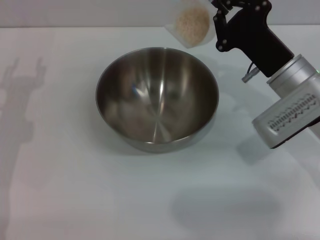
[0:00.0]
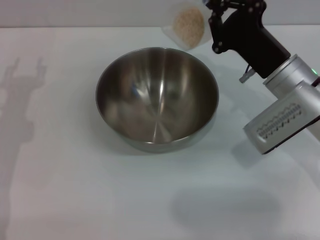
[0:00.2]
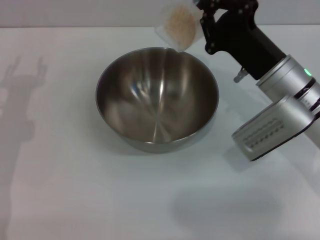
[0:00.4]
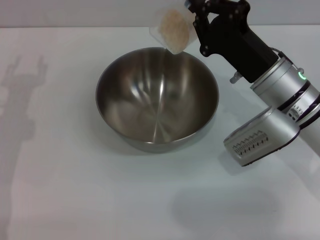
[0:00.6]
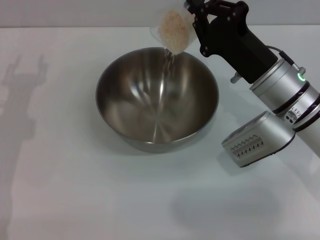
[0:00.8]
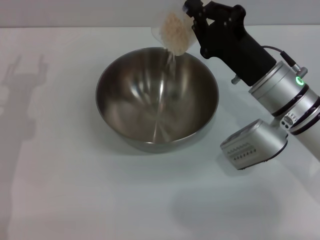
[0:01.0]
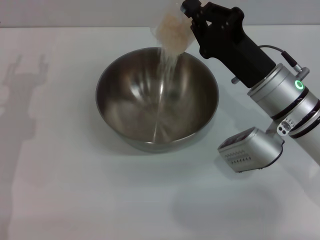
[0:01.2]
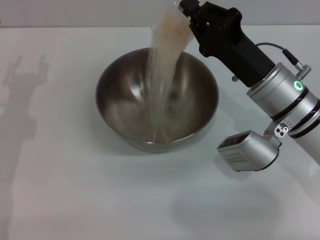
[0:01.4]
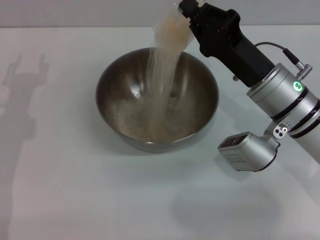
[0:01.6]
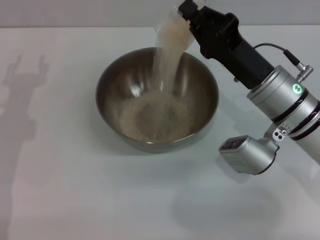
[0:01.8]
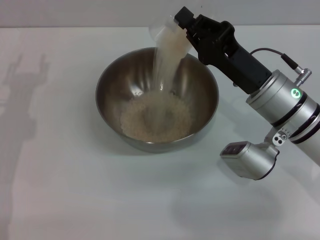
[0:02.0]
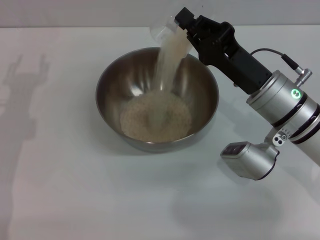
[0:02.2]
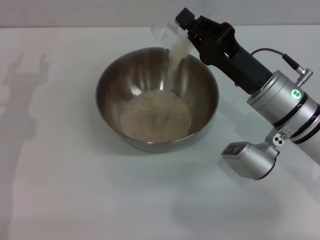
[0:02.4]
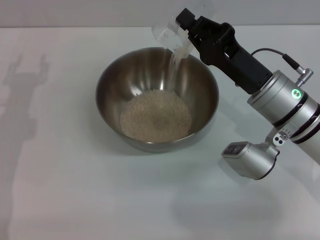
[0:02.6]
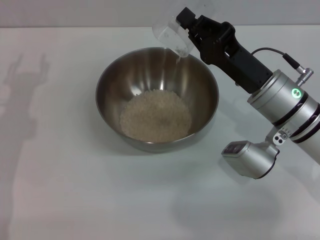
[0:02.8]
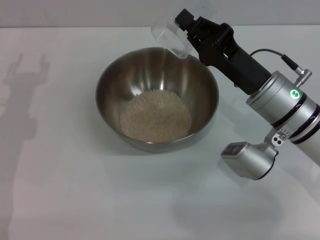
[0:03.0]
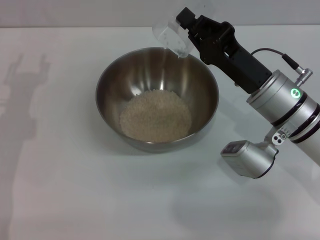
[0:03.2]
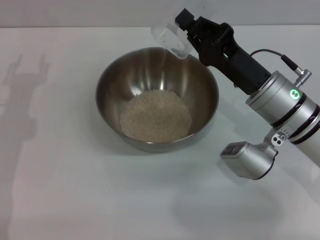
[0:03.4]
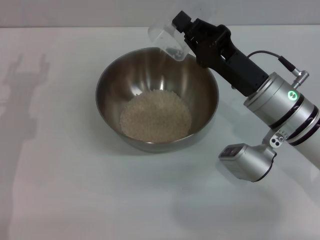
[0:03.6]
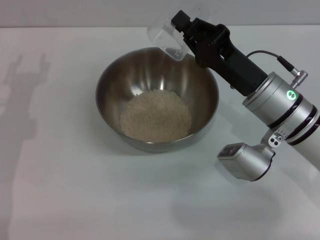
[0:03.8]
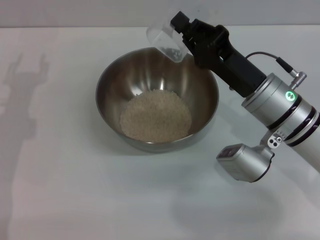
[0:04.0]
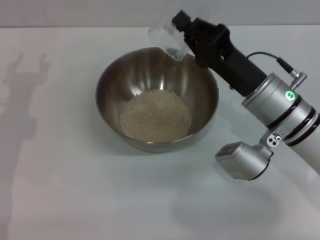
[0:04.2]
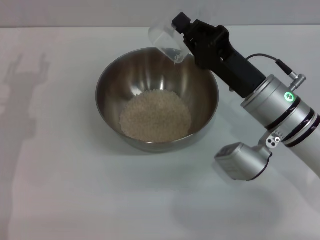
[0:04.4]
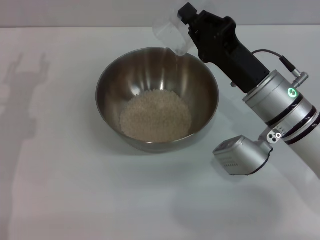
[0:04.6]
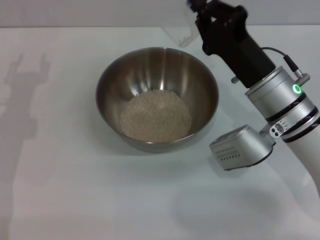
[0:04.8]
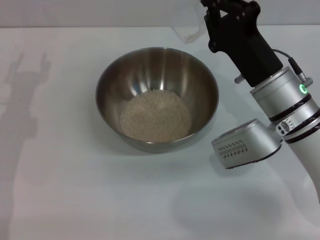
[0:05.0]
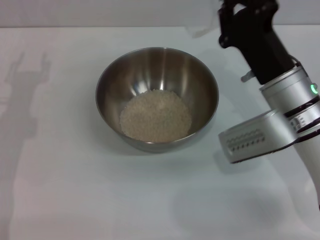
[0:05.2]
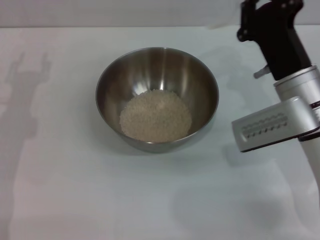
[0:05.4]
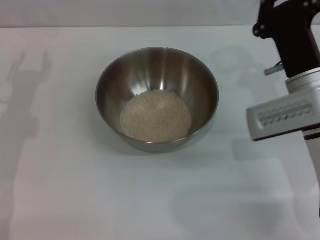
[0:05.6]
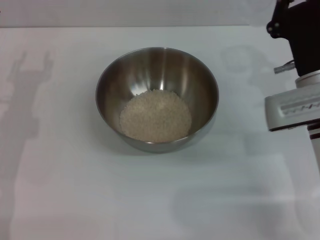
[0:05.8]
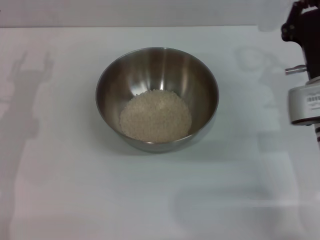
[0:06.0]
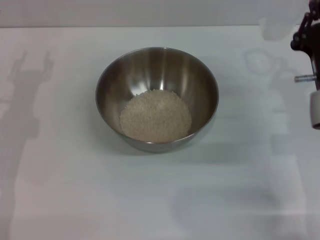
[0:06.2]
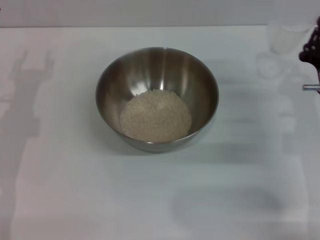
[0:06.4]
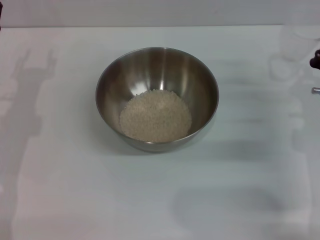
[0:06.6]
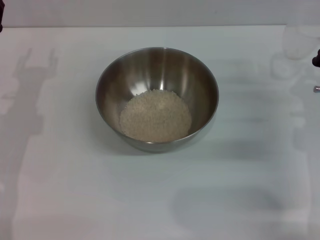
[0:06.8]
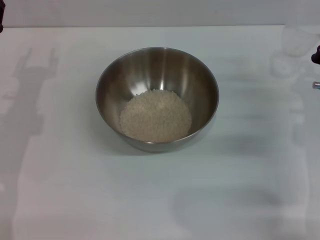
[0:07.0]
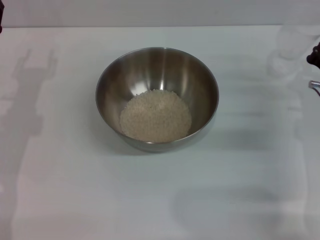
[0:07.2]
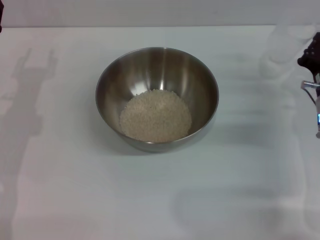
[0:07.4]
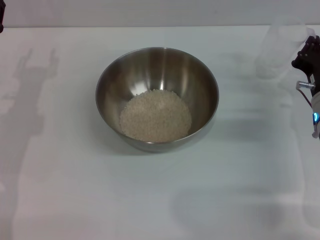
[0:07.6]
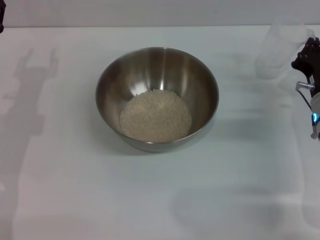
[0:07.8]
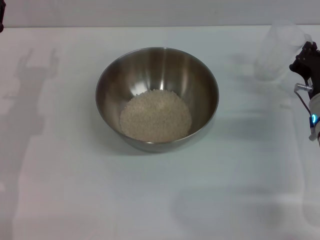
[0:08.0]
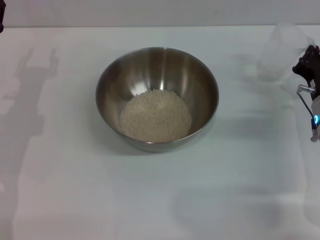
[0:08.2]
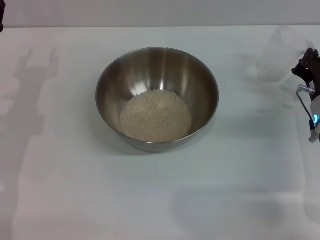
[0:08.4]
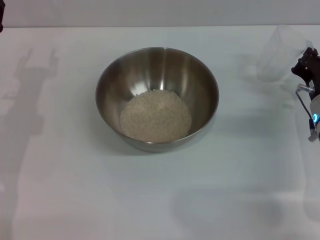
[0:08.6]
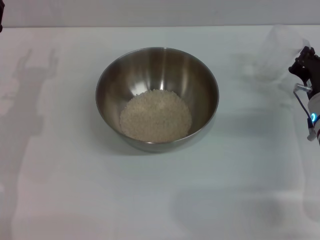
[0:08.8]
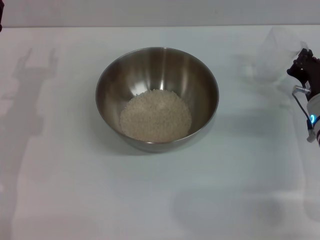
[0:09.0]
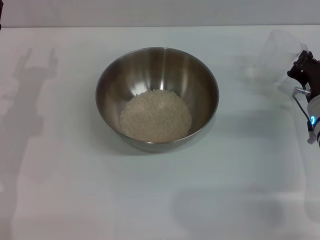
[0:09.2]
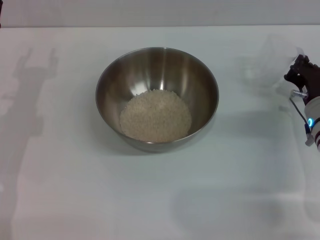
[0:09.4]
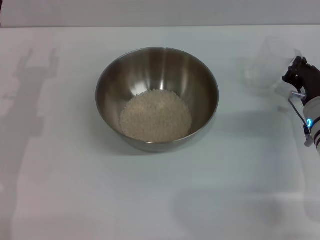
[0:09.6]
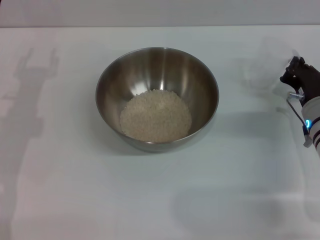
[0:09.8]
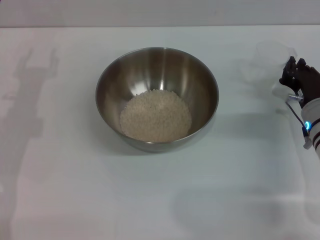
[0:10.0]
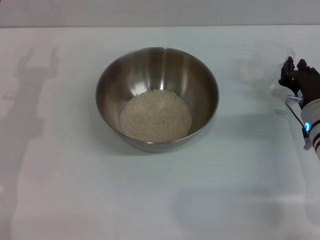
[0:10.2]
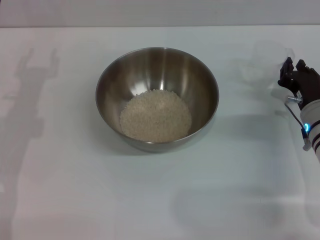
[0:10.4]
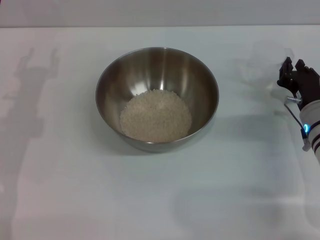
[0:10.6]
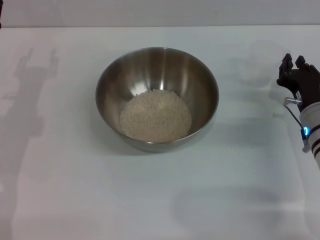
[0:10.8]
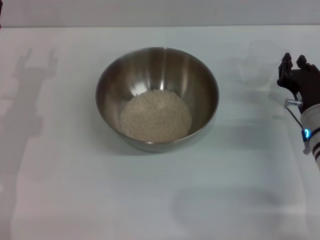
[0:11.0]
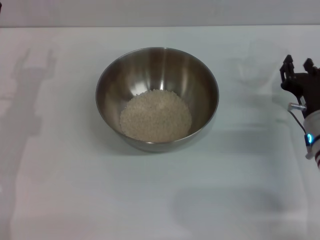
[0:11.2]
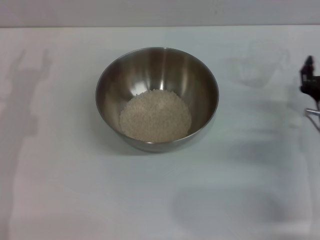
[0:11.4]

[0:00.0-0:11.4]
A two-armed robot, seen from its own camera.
Task of the whole recording: Place the bowl in the middle of the table with one hand and pour the rice from the grain cup into it with the other hand.
Step, 0:00.0 to 0:03.0: Pour the rice from the cup into the bowl with the right gripper.
Step, 0:03.2 to 0:11.0: Place the cup on the table with the right gripper.
0:01.4 to 0:02.8: The grippers stay close to where they were, moving slightly.
0:02.8 to 0:04.2: The two grippers keep their place.
0:05.6 to 0:07.2: The right gripper moves to the right, about 5 cm.
0:07.2 to 0:10.0: The grippers make only small movements.
0:10.0 to 0:11.4: The right gripper opens up.
